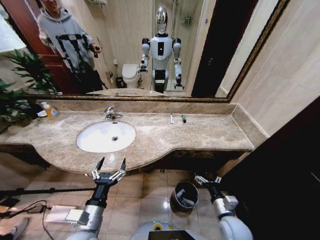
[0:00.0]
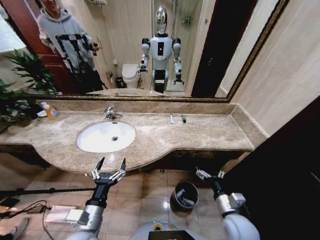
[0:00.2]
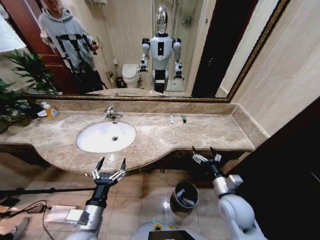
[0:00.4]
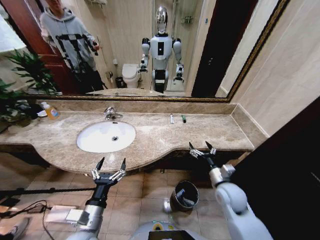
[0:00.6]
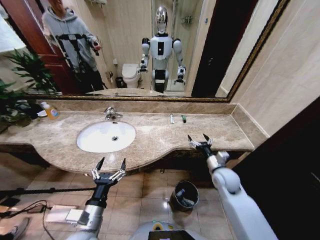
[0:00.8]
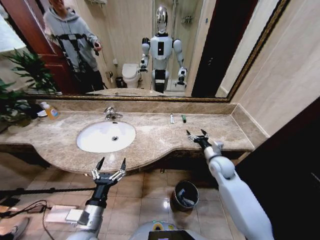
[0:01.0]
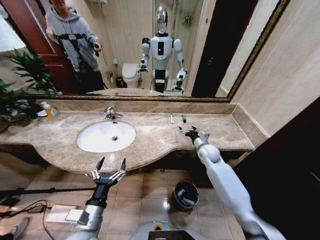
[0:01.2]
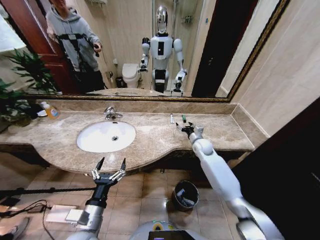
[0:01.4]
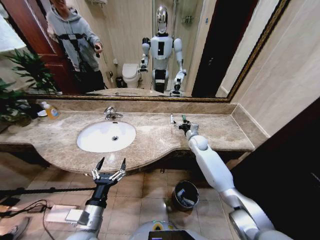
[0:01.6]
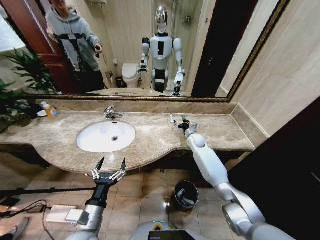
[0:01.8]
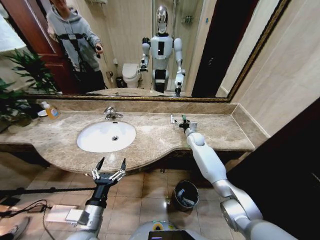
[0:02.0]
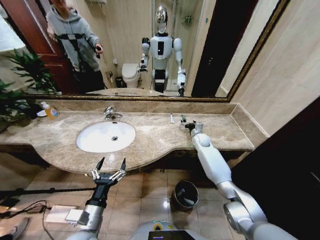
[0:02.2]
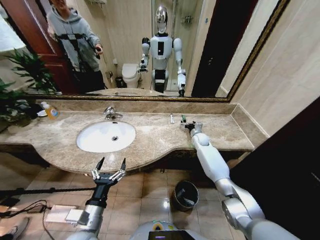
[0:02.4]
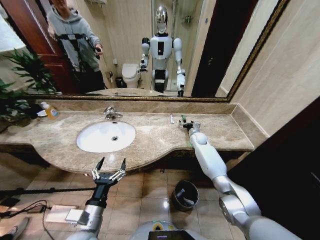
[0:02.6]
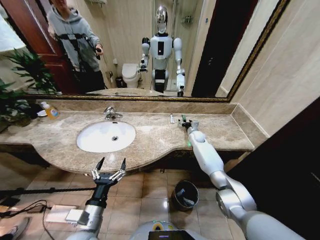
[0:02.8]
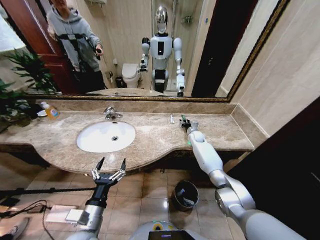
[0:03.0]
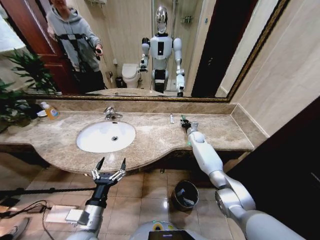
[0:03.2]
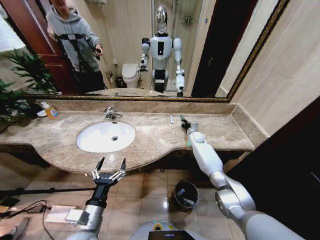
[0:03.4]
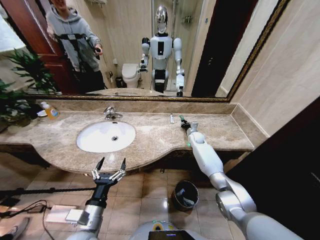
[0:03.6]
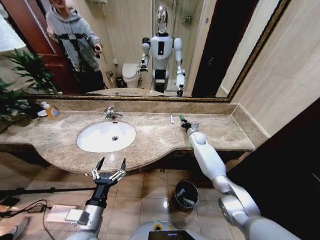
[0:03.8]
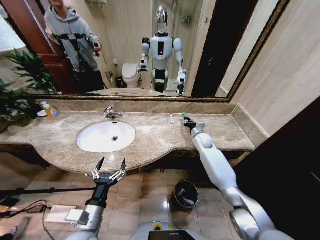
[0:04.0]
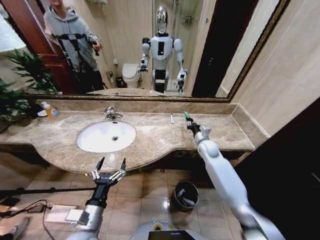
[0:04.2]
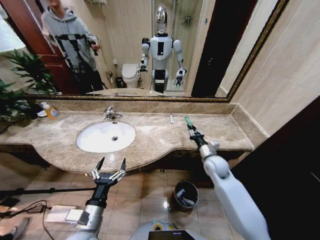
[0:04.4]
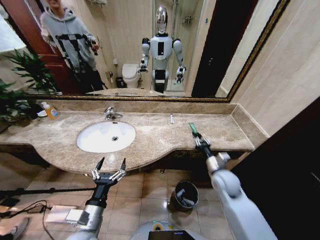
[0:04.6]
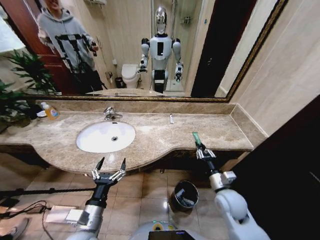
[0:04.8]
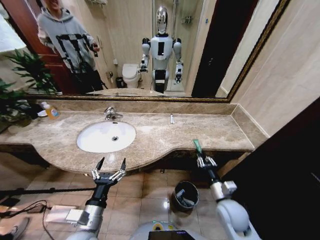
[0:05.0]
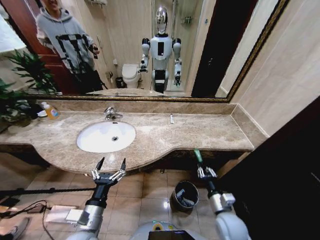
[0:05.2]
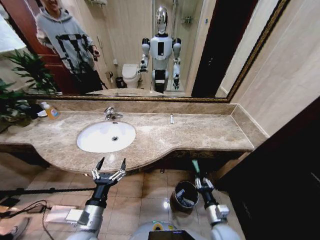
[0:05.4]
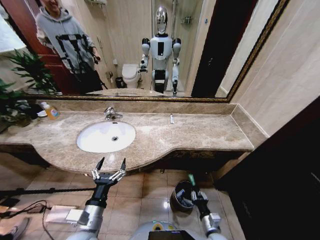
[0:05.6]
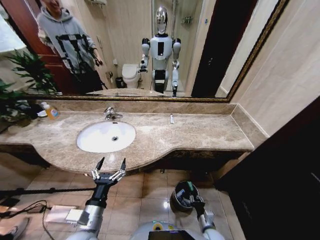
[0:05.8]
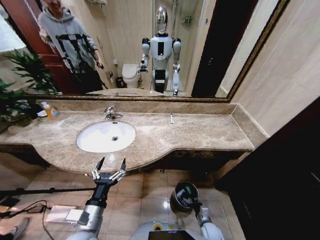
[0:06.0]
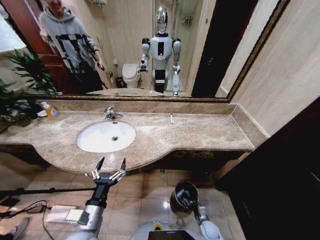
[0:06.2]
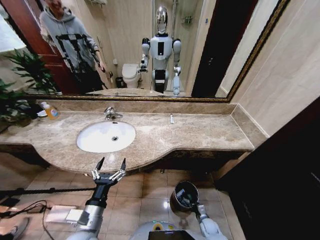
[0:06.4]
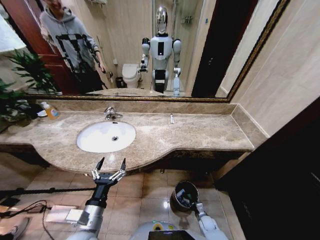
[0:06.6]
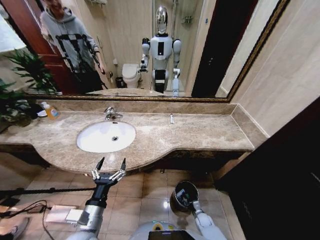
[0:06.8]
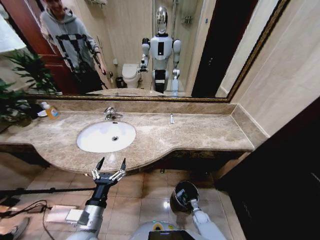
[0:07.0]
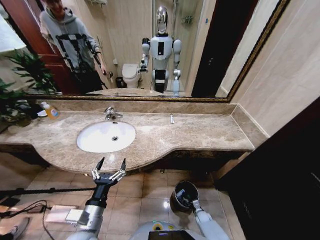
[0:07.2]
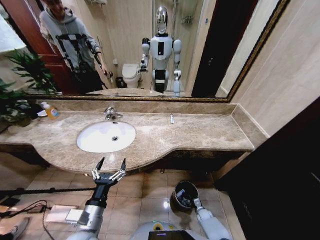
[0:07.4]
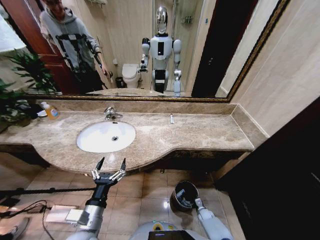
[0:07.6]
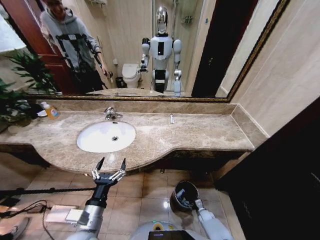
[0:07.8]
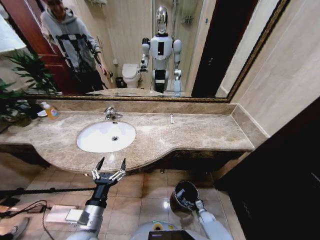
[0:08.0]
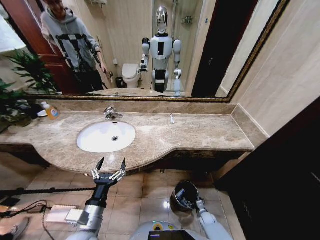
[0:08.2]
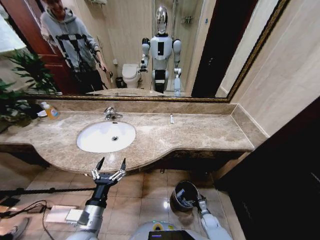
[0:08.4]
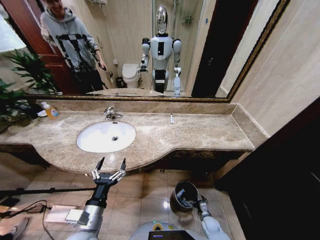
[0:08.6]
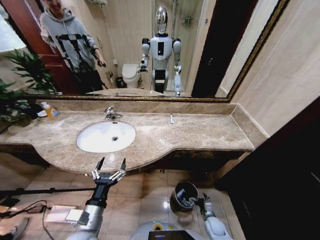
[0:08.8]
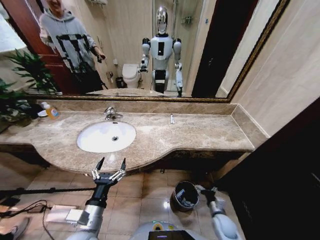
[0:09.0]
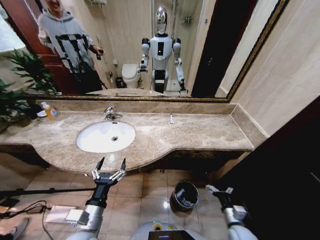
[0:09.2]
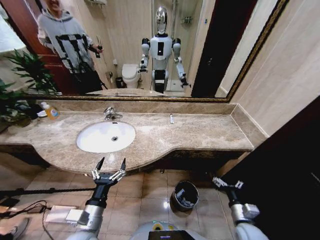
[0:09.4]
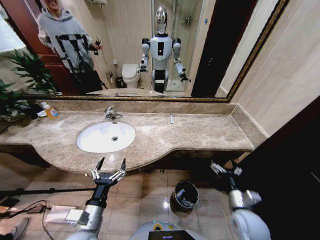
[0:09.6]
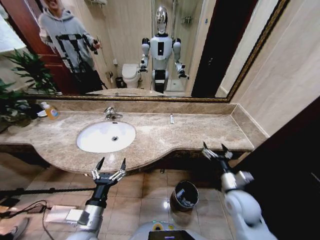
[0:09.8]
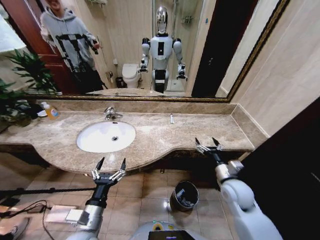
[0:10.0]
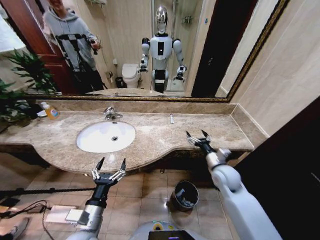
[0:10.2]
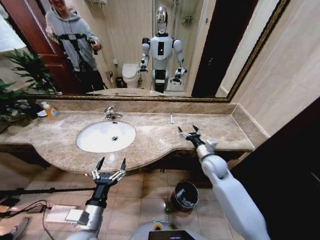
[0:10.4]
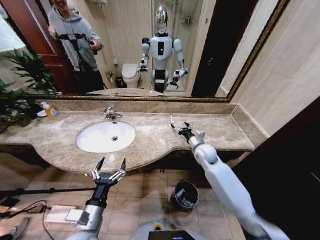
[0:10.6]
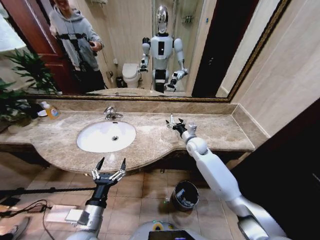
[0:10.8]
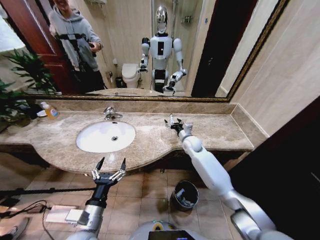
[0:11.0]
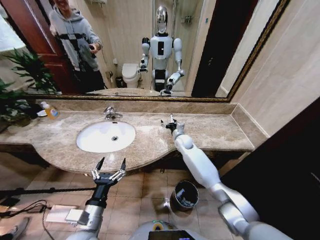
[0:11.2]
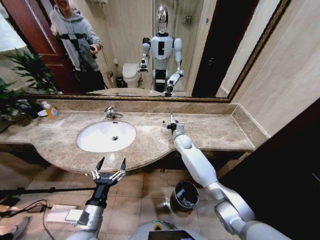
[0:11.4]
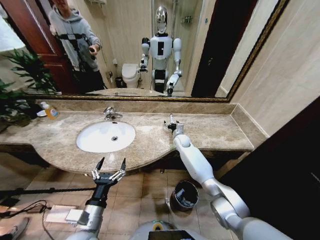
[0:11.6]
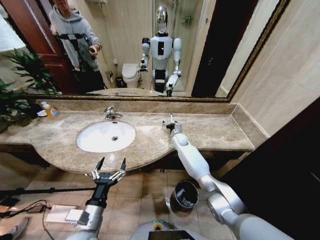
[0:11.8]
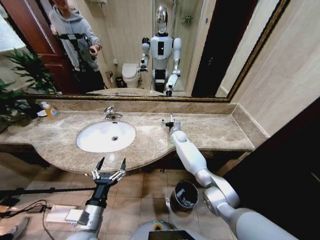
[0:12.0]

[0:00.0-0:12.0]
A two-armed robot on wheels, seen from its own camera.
Task of the whole recording: Pick up the trash from the sink and place it in the trash bin.
0:00.0 to 0:01.6: The right gripper shifts about 35 cm forward.
0:01.6 to 0:03.0: The right gripper heads forward, covering about 5 cm.
0:03.0 to 0:04.4: The right gripper is displaced backward by some 20 cm, and closes up.
0:04.4 to 0:06.0: The right gripper goes approximately 35 cm downward and backward.
0:06.0 to 0:07.6: The right gripper is displaced downward and forward by some 15 cm.
0:07.6 to 0:09.0: The right gripper goes approximately 20 cm upward, and opens up.
0:09.0 to 0:10.4: The right gripper goes approximately 30 cm upward and forward.
0:10.4 to 0:12.0: The right gripper shifts roughly 25 cm forward and to the left.

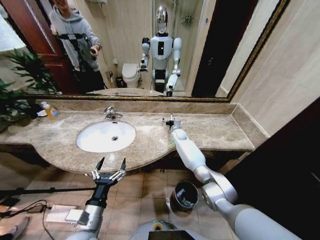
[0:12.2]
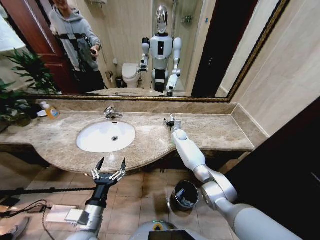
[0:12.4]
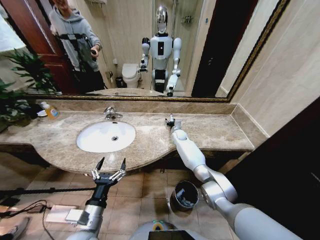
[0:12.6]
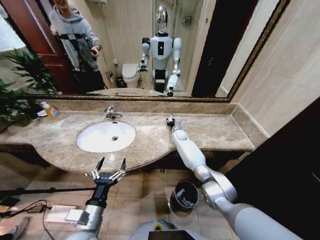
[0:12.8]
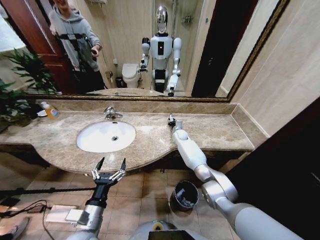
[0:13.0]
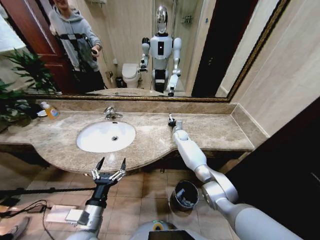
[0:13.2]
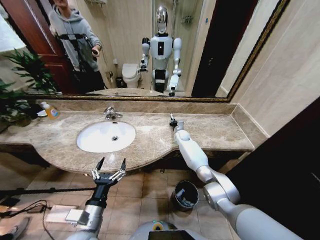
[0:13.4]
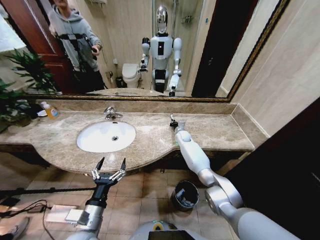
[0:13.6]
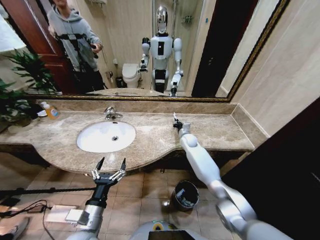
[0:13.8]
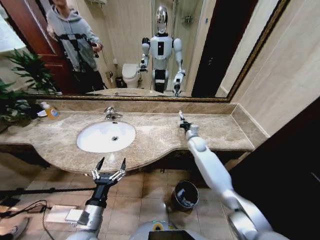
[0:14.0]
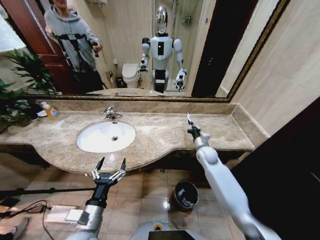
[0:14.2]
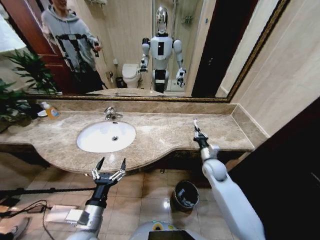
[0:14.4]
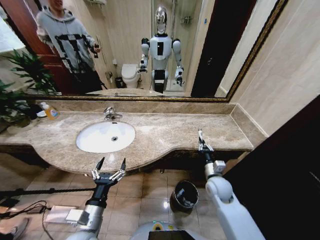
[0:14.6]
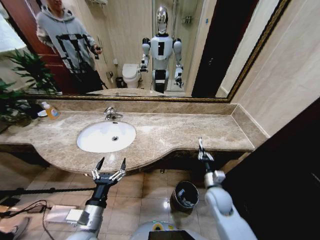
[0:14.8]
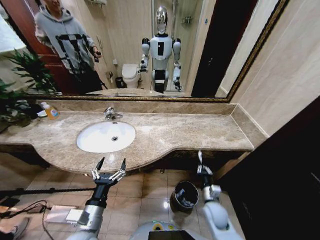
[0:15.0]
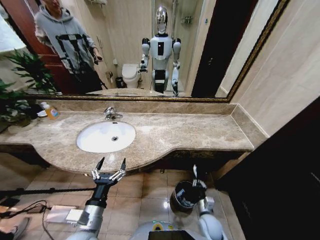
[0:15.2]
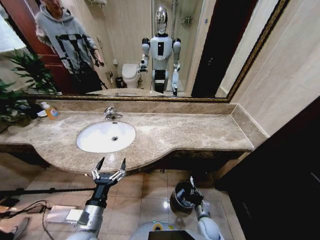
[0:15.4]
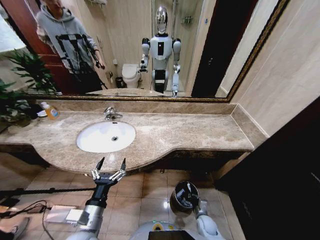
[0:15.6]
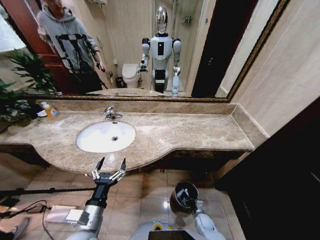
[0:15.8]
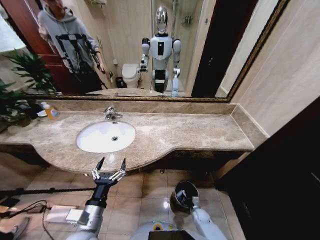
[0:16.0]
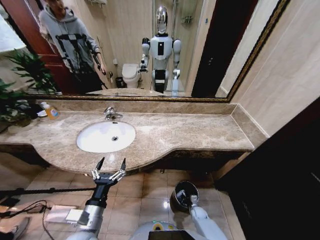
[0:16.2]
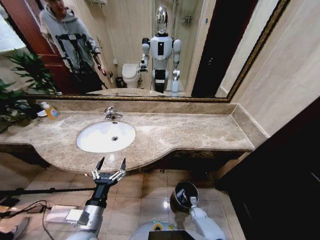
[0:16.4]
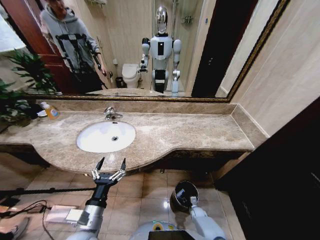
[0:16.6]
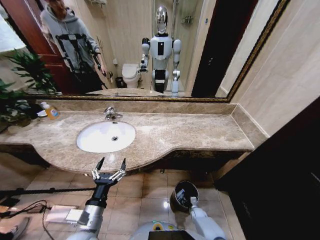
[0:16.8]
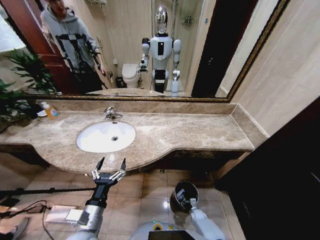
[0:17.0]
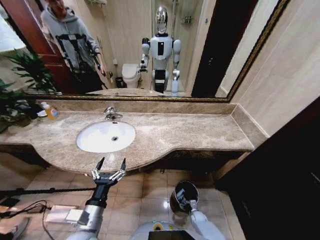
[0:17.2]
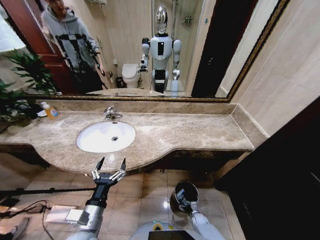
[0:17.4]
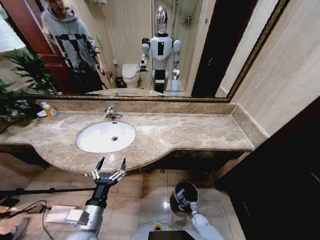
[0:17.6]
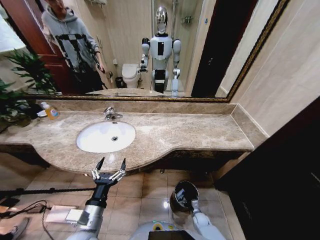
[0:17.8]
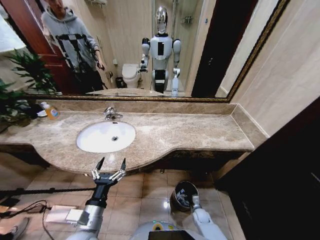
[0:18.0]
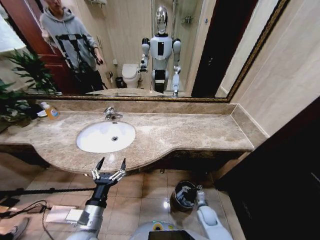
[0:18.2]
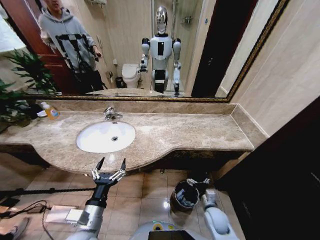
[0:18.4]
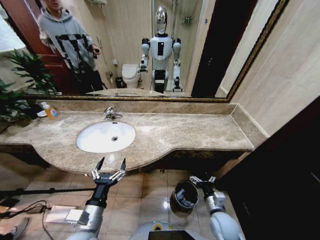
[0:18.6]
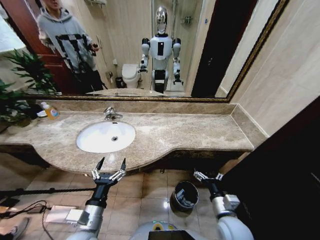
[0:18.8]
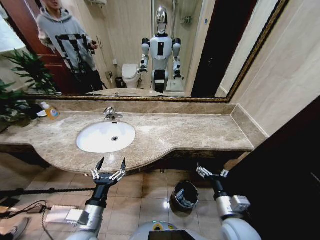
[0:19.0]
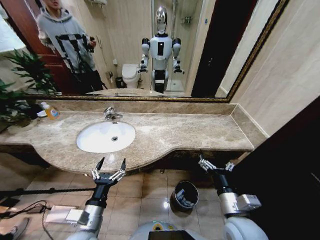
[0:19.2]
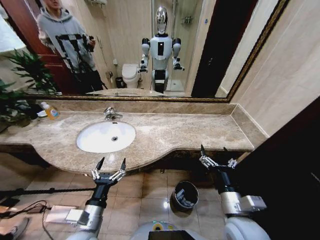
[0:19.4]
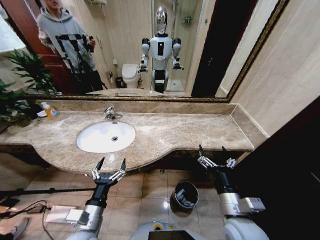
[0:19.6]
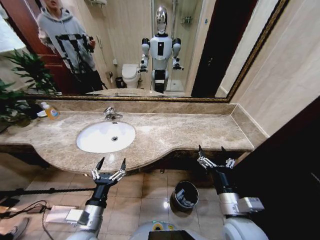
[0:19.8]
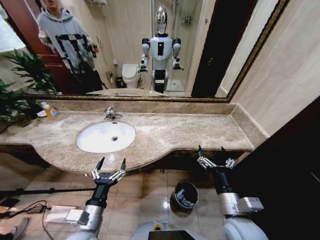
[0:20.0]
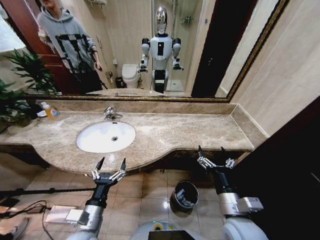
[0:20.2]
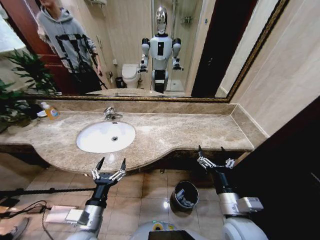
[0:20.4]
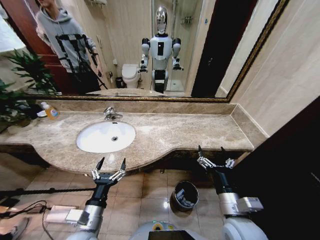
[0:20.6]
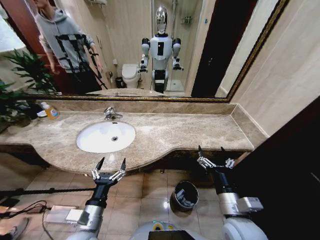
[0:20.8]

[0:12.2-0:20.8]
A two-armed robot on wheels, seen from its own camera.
Task of the whole recording: Pick up the trash from the sink and place it in the trash bin.
0:12.2 to 0:13.6: The right gripper closes.
0:13.6 to 0:15.0: The right gripper shifts approximately 40 cm backward.
0:15.0 to 0:16.6: The right gripper heads downward, covering about 25 cm.
0:16.6 to 0:18.0: The right gripper shifts about 10 cm upward, and opens its fingers.
0:18.0 to 0:19.4: The right gripper travels upward by about 40 cm.
0:19.4 to 0:20.8: The two grippers keep their place.

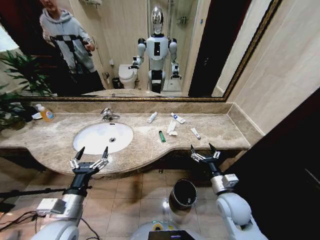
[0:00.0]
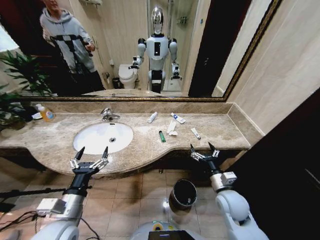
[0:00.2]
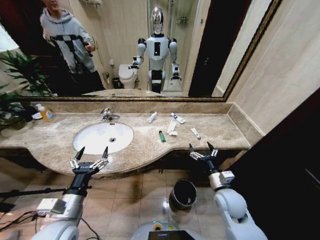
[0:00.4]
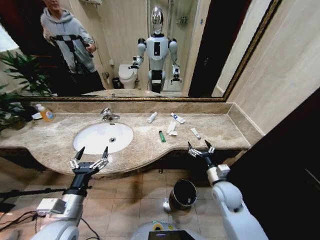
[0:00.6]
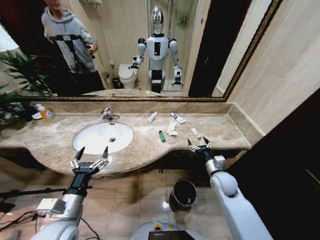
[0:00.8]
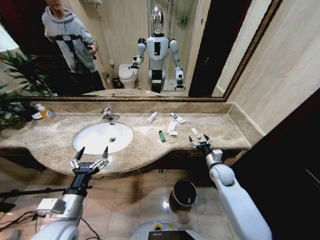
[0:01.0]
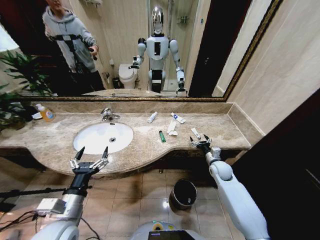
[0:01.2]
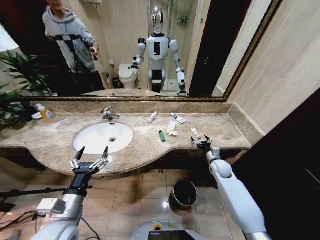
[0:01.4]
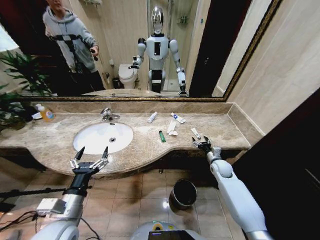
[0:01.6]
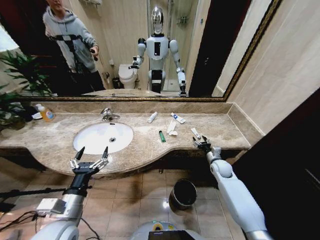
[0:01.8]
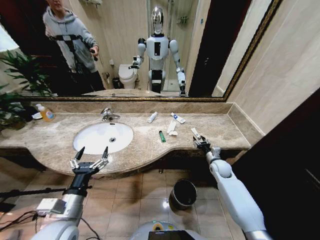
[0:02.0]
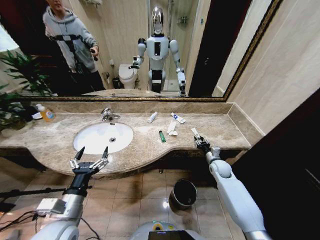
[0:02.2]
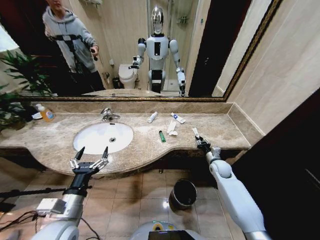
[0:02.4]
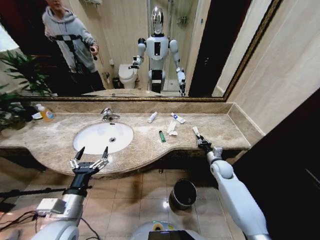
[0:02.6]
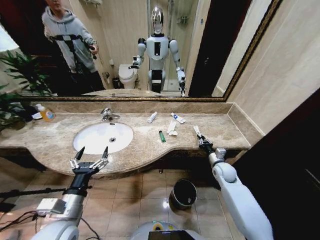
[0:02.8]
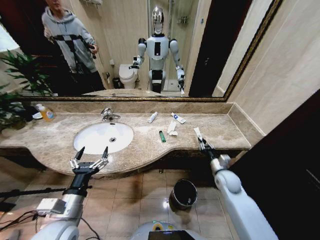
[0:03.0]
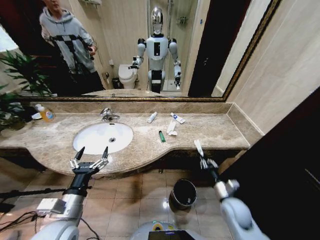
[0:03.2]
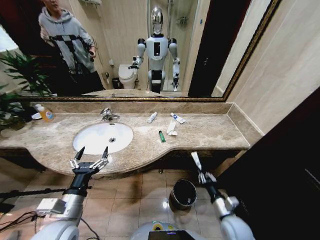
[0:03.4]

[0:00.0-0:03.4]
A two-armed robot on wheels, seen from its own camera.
Task of the whole recording: Pick up the trash from the sink and place it in the trash bin.
0:01.6 to 0:03.4: The right gripper moves backward, some 25 cm, and closes up.
